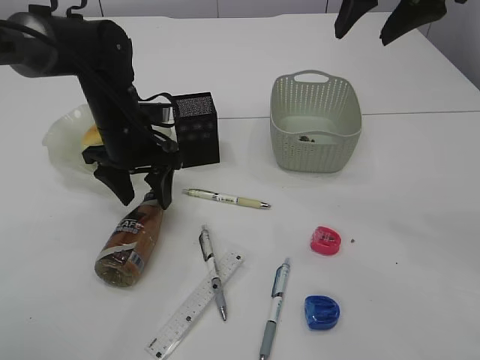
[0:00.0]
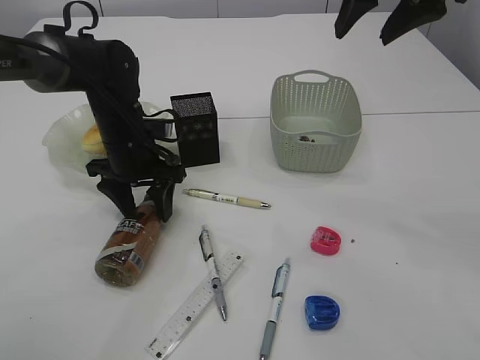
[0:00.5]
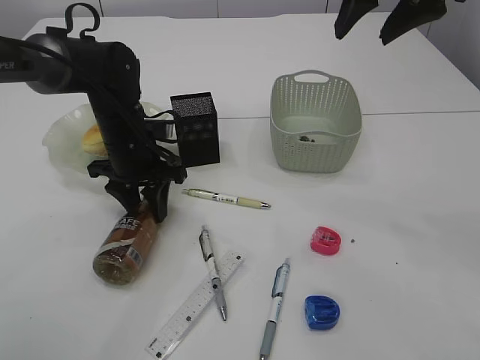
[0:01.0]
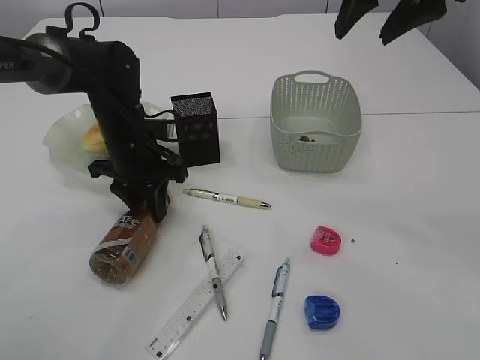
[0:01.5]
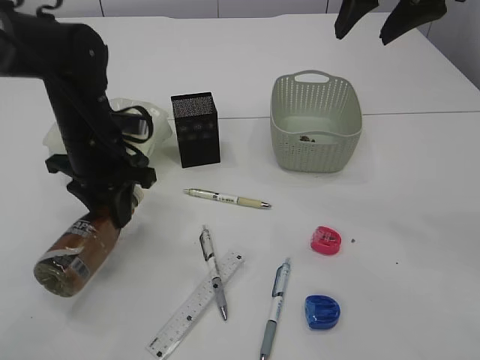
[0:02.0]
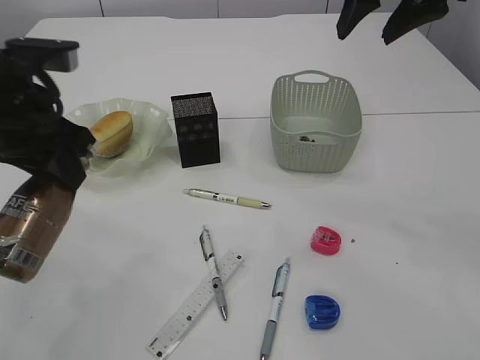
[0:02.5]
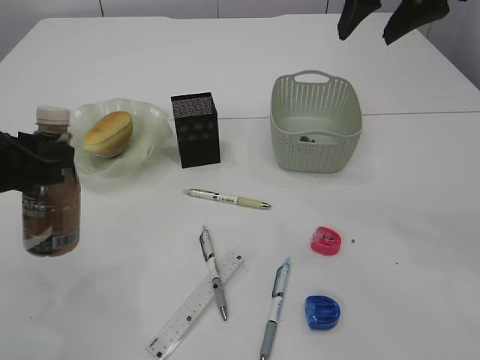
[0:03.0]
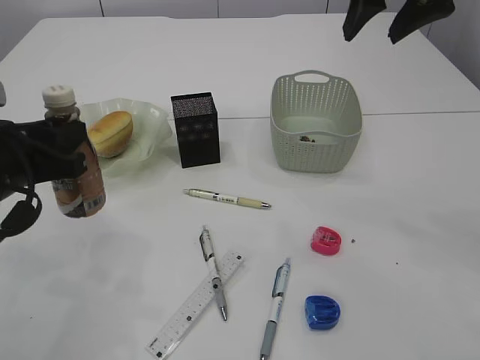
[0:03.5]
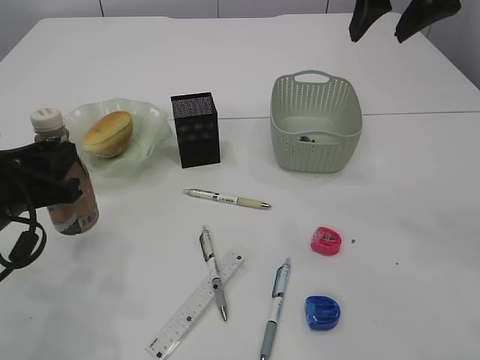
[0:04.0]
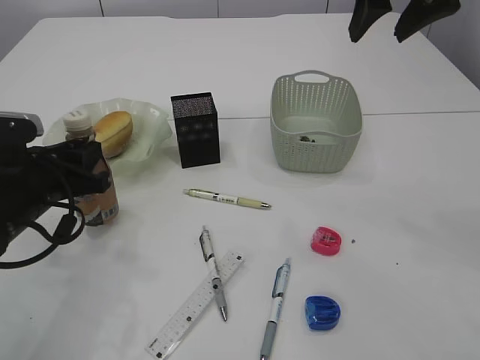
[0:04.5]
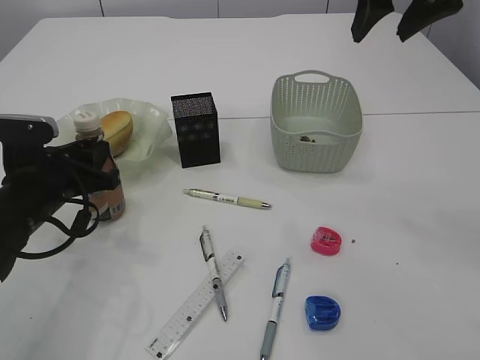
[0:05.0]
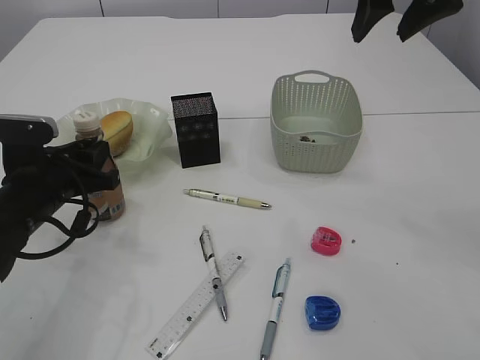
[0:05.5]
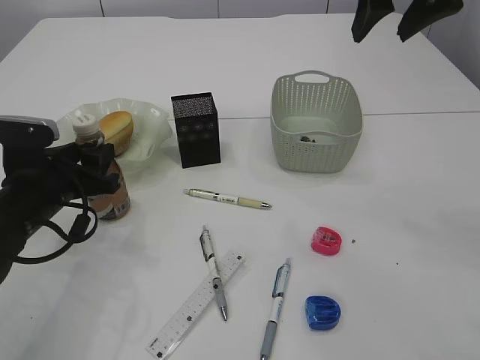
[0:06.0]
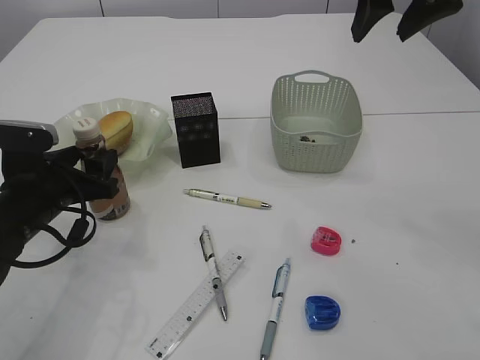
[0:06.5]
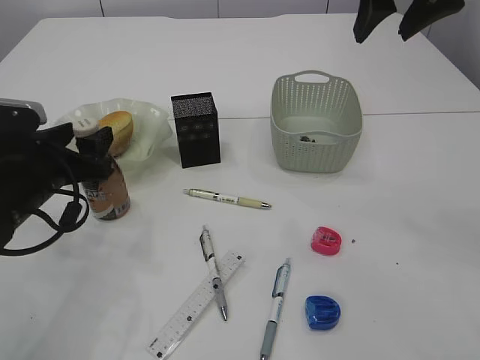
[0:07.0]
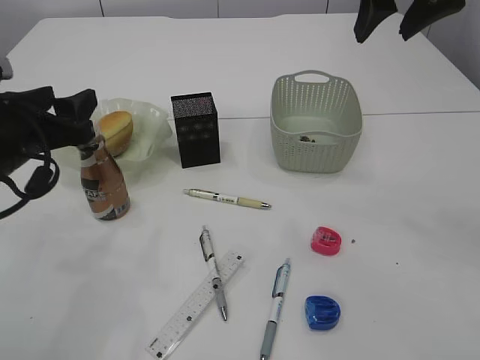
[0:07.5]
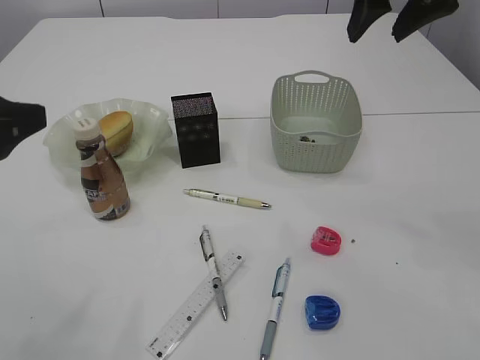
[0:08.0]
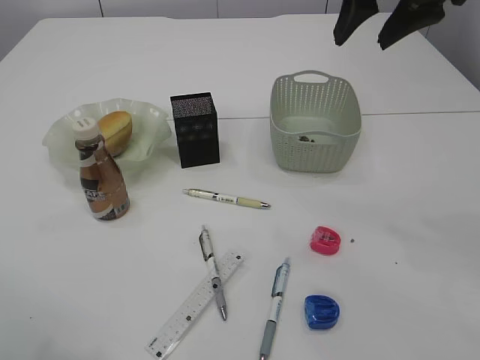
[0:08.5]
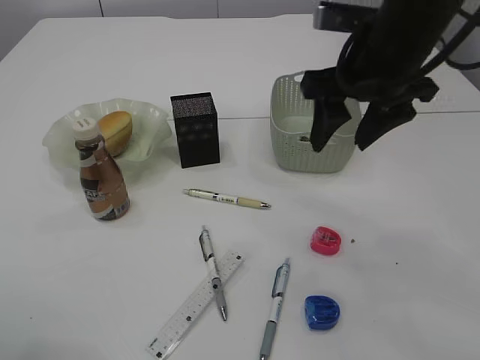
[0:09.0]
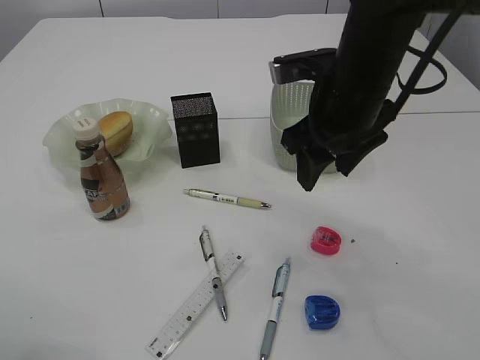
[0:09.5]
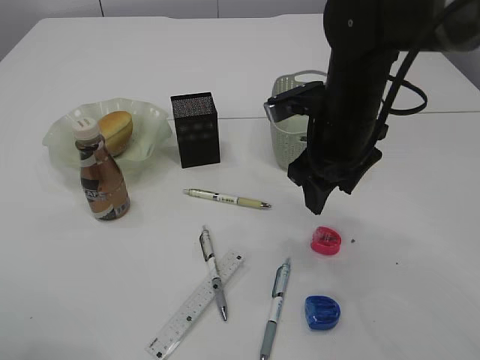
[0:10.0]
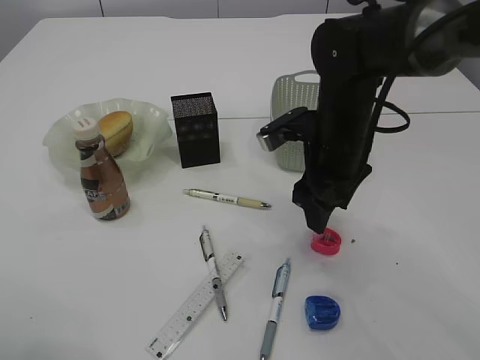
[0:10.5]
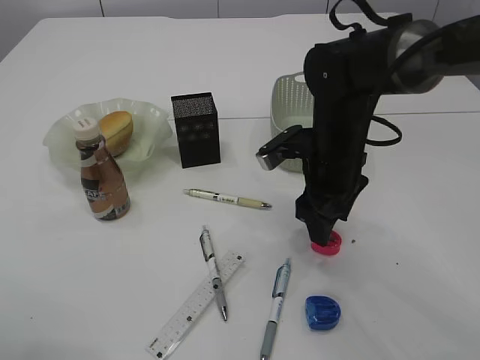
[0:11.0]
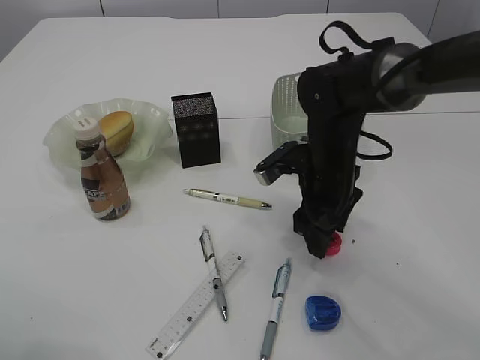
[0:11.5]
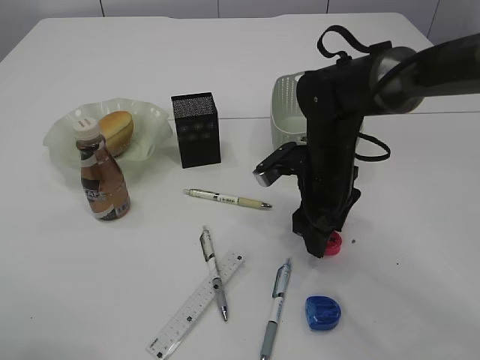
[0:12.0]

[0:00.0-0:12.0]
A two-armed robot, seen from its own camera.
Step, 0:00.0 to 0:02.0: Pick up the bottle with the left arm.
Step, 0:02.5 to 0:07.5: Place the bottle.
0:00.0 to 0:02.0: The left gripper closes up.
0:02.0 to 0:04.0: The left gripper travels backward and to the left by roughly 15 cm.
0:04.0 to 0:06.0: The left gripper shifts approximately 5 cm forward.
0:06.0 to 0:08.0: The left gripper travels upward and backward by roughly 20 cm.
0:08.0 to 0:10.0: The right gripper goes roughly 20 cm downward and to the left.
0:10.0 to 0:12.0: The right gripper travels downward by roughly 10 cm.

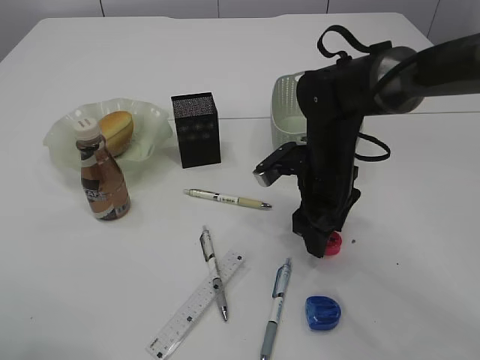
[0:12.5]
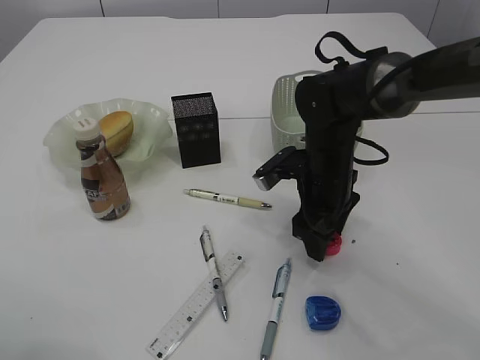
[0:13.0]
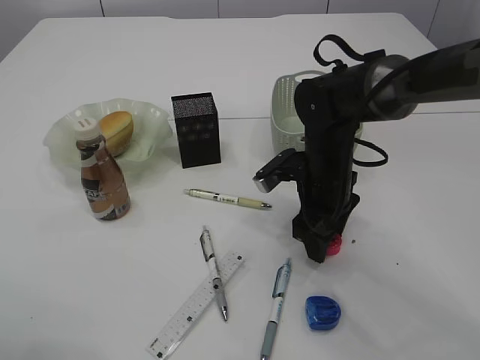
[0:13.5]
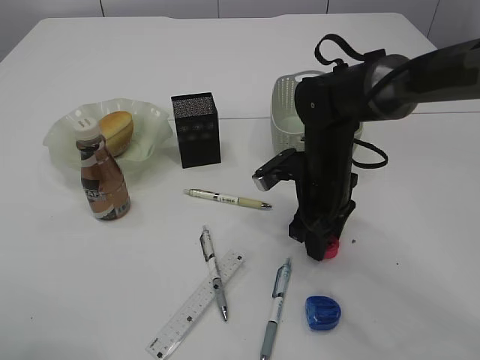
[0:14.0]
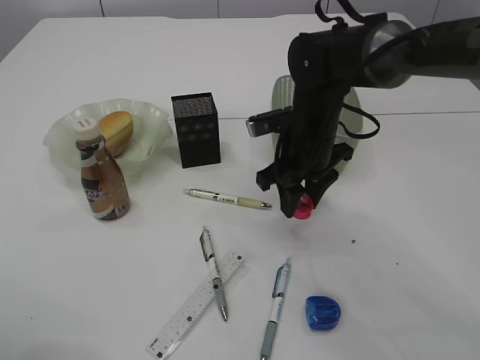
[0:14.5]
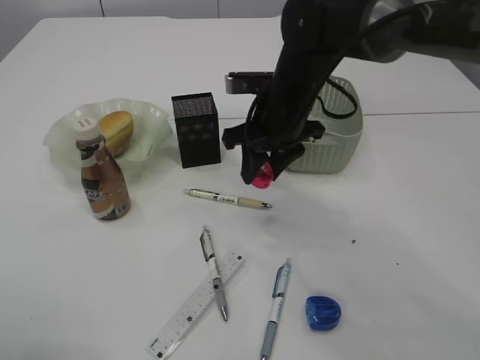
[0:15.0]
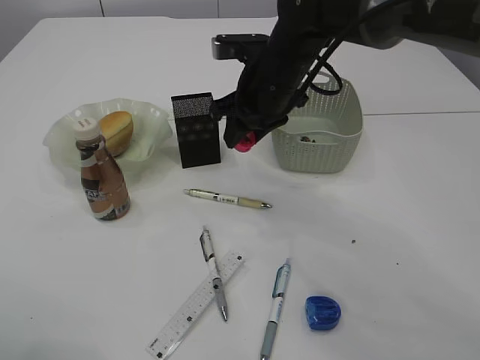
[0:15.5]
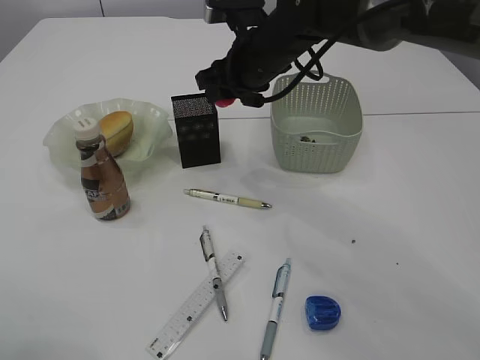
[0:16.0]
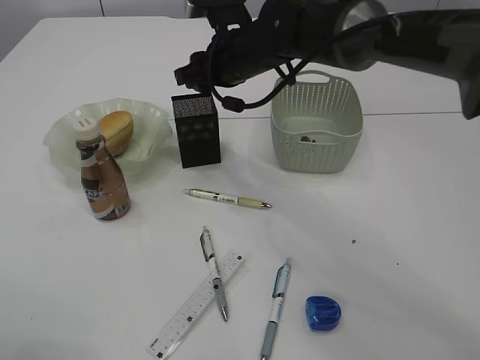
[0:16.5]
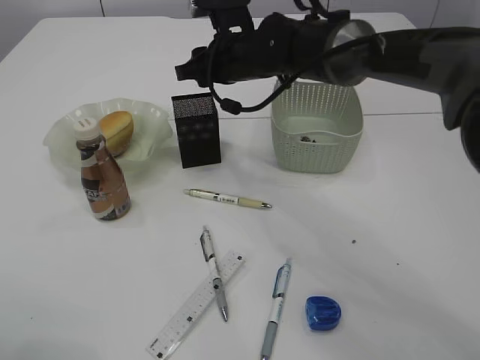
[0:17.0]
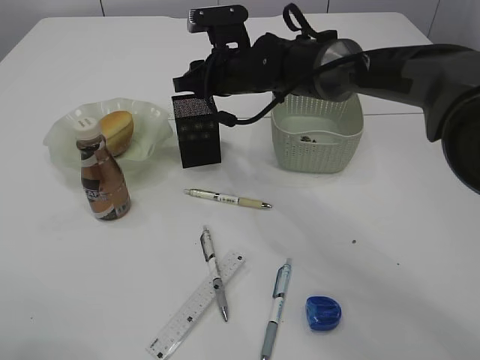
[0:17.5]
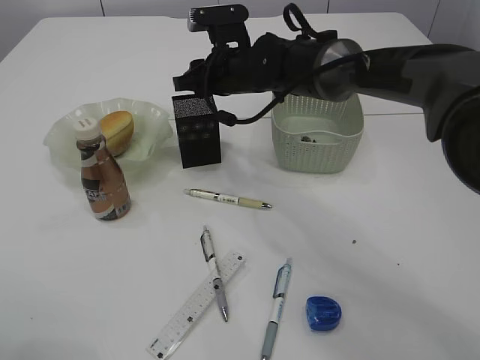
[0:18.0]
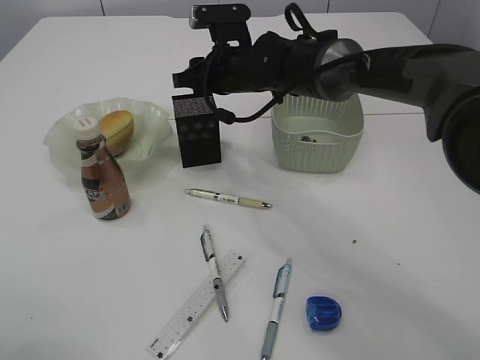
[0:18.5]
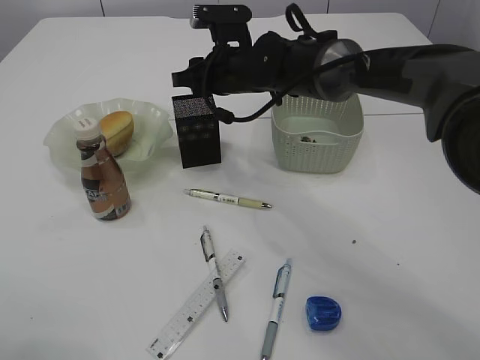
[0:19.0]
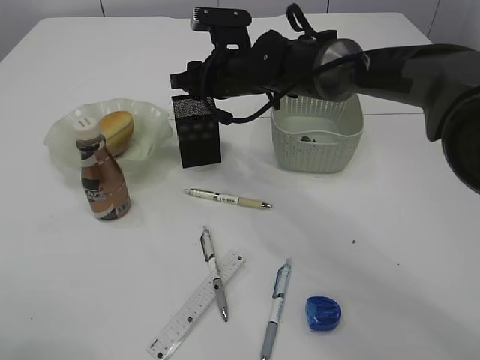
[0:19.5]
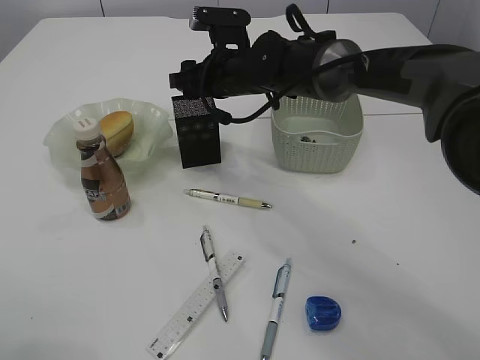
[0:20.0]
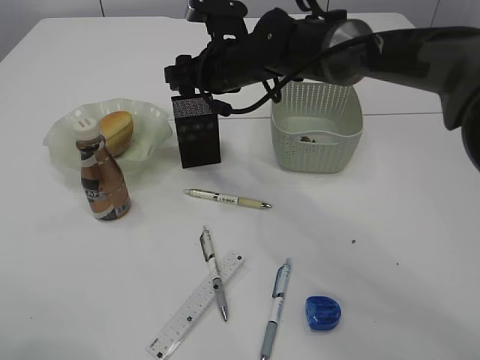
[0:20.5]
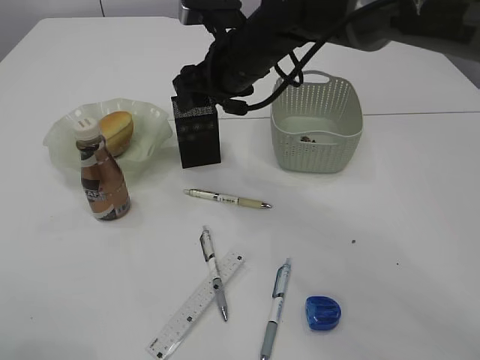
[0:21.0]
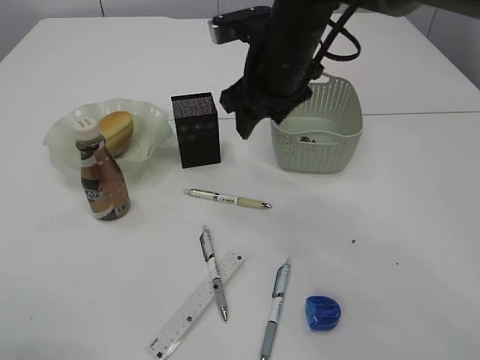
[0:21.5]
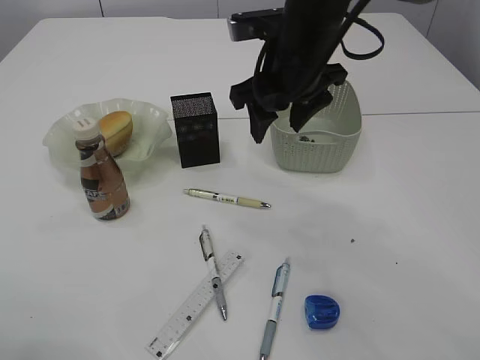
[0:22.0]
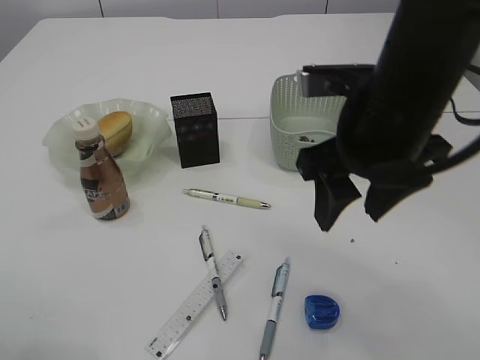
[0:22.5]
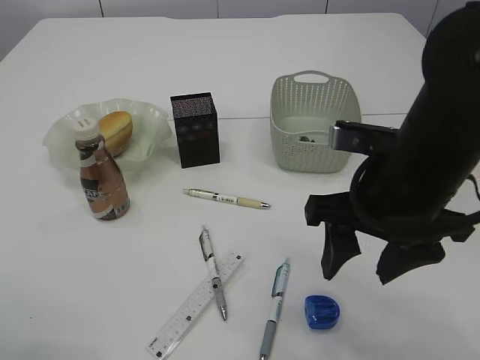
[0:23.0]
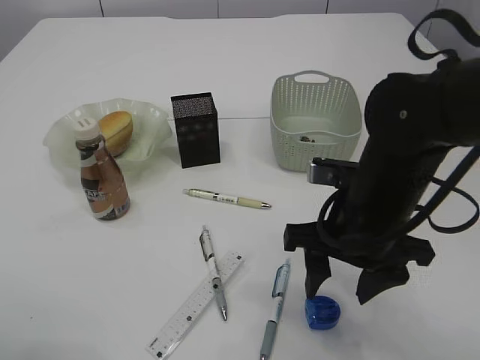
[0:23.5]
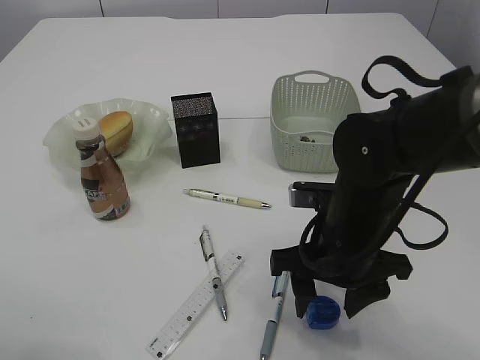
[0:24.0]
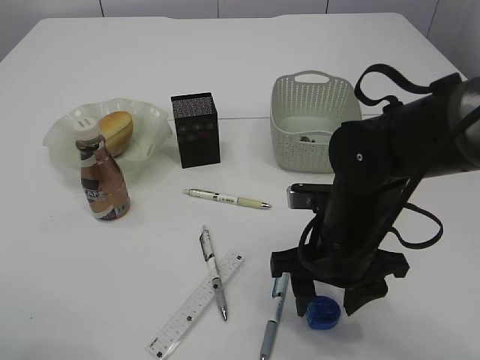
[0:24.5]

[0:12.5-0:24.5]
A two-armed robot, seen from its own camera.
Step, 0:12.5 to 0:14.5: Pick up the red pencil sharpener.
Step, 0:15.0 to 0:18.5: Place the red pencil sharpener into the pen holder.
0:14.5 to 0:16.5: The right gripper heads upward, to the left and forward, covering some 10 cm.
0:16.5 to 0:20.5: The grippers move only a little.
0:20.5 to 0:22.5: The right gripper shifts about 20 cm backward and to the right.
0:22.5 to 0:24.5: The right gripper heads downward, covering approximately 15 cm.

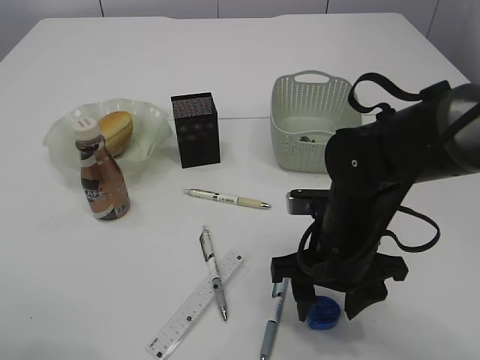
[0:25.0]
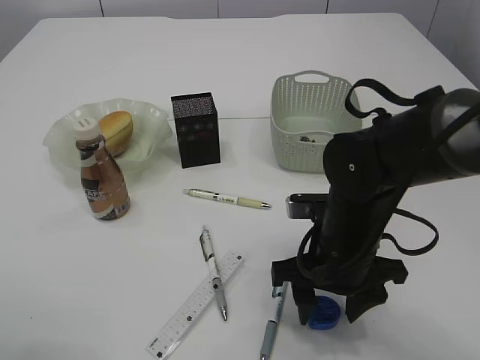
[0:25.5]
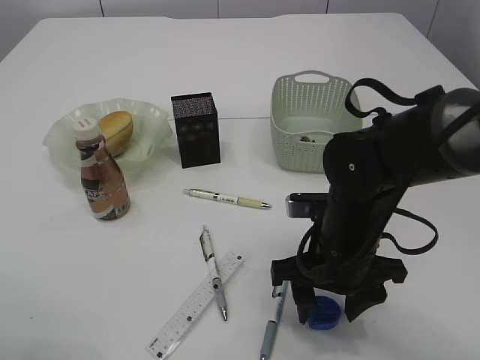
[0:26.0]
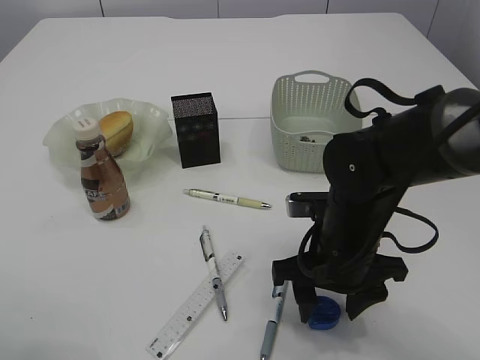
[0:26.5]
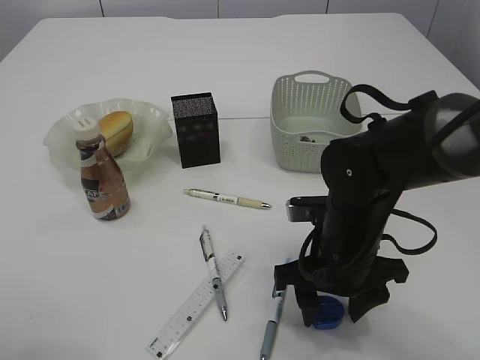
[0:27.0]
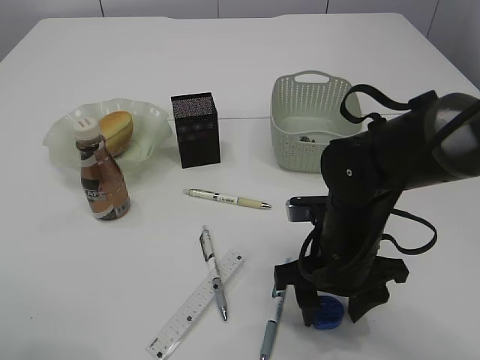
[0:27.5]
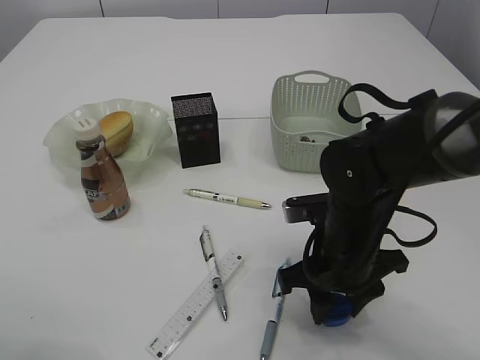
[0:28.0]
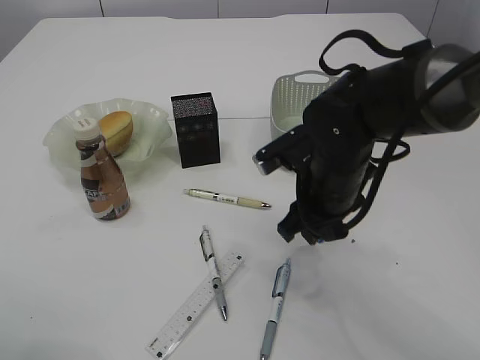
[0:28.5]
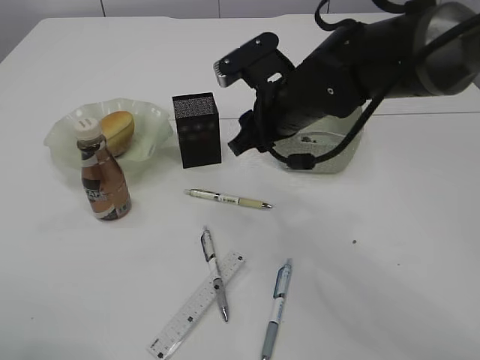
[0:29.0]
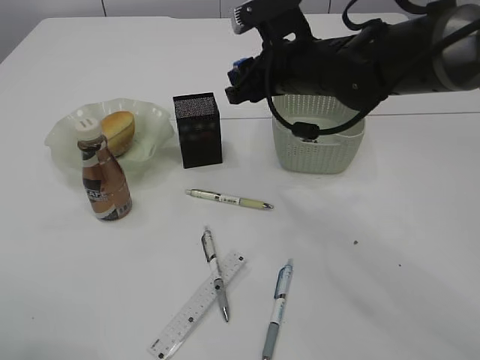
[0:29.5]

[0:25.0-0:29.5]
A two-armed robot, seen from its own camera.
Step, 0:25.0 to 0:28.5: Pick up the blue pencil sharpener.
0:25.0 to 0:27.0: Both grippers stay put.
0:27.0 to 0:29.5: The right gripper heads forward and upward, covering some 20 cm.
